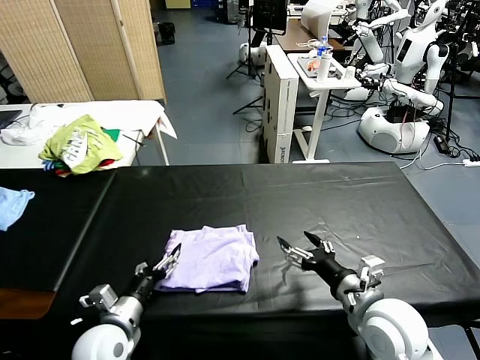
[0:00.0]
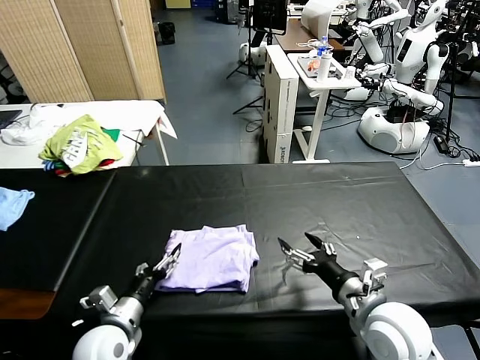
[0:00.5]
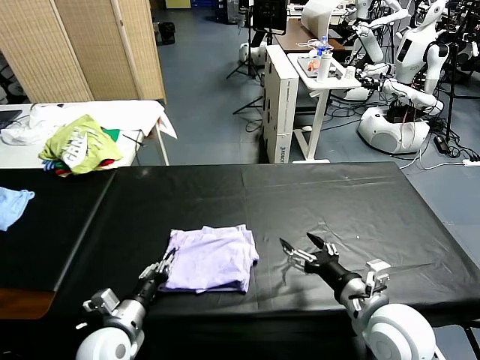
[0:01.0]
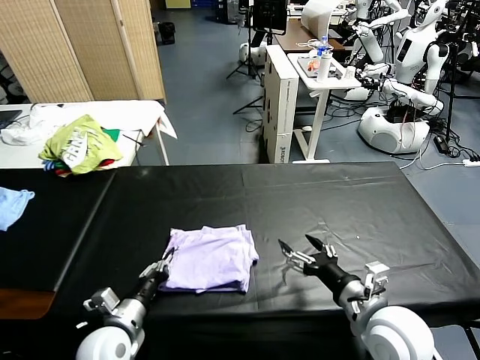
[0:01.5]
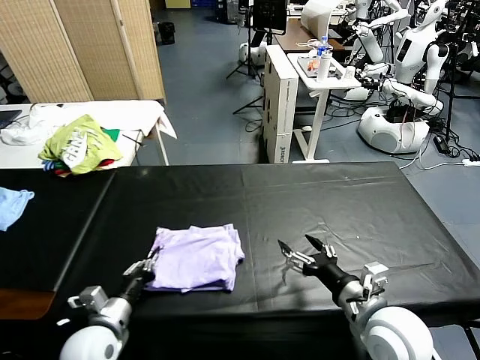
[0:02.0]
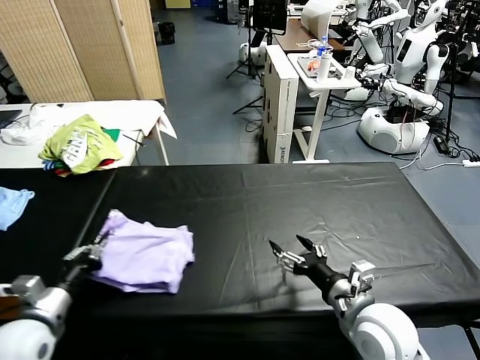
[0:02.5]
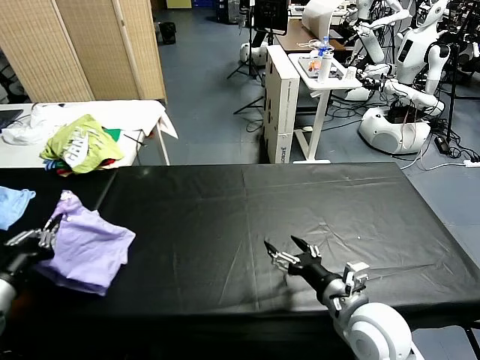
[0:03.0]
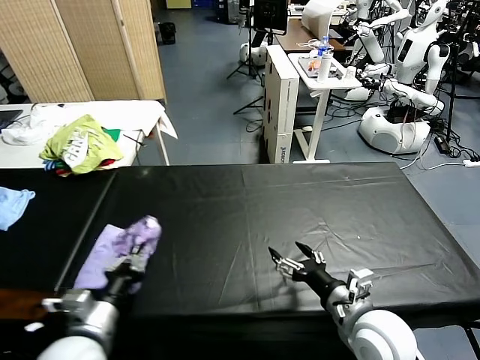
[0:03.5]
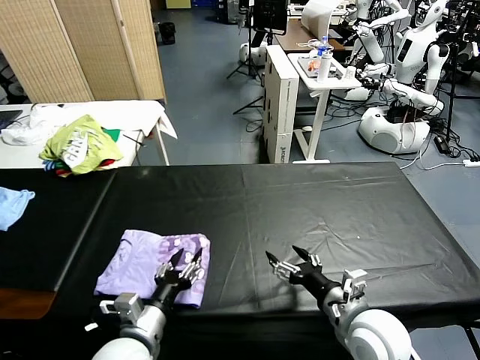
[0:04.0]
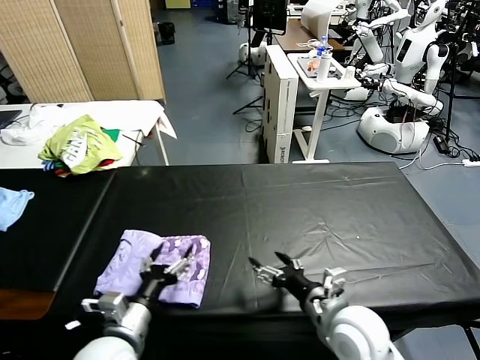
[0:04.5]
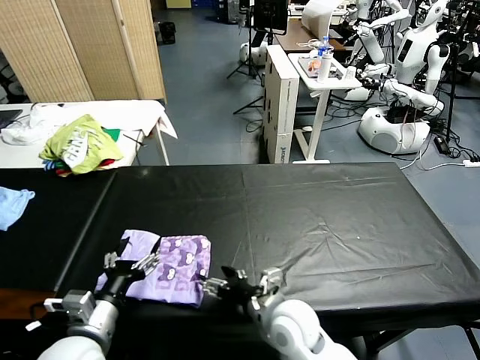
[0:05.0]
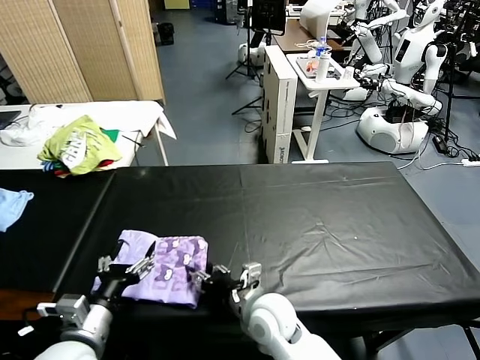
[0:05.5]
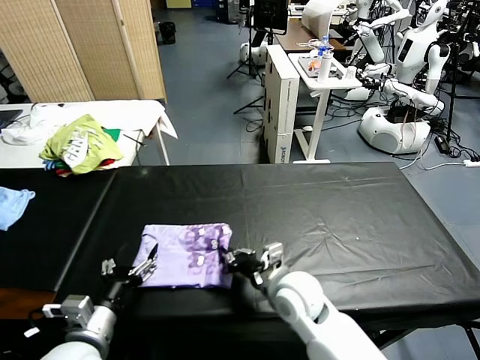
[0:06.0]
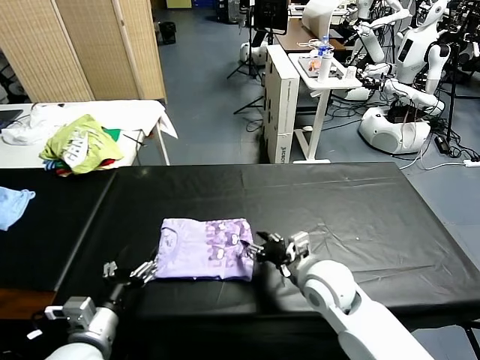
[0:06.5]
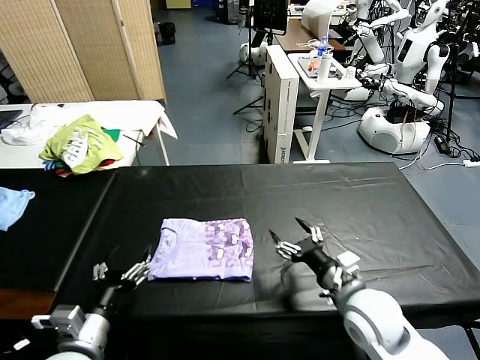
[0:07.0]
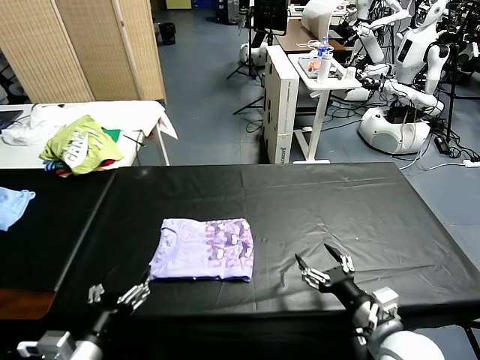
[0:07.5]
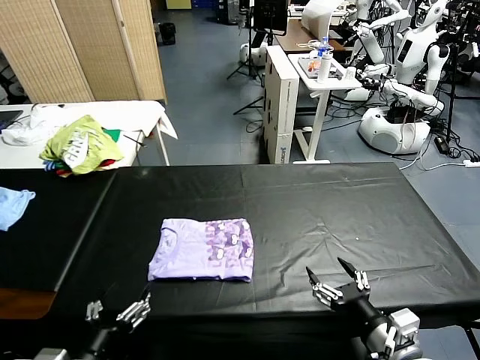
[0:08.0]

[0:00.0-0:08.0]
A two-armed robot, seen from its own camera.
Task of the whole recording: fold and organize the clothes.
Step, 0:00.0 to 0:04.0: Flip the folded clothes over with left gripper.
Step, 0:04.5 to 0:06.5: Drag the clothes to the center of the table.
0:00.0 to 0:02.0: The left gripper closes.
0:02.0 to 0:04.0: The left gripper goes approximately 10 cm to the right, and opens up.
0:04.0 to 0:06.0: The right gripper is displaced to the left and forward by approximately 15 cm, and closes up. The left gripper is displaced to the left by about 5 cm, and opens its fingers.
0:06.0 to 0:08.0: The right gripper travels to the right and backward by some 25 cm, and opens up. Meanwhile the left gripper is displaced backward by about 10 cm.
